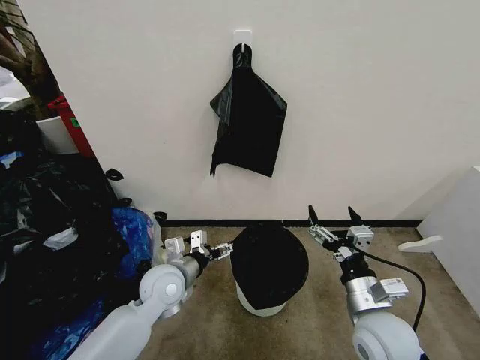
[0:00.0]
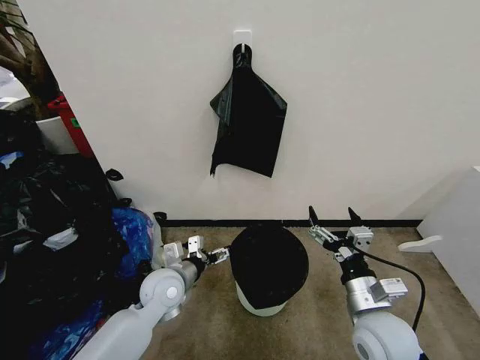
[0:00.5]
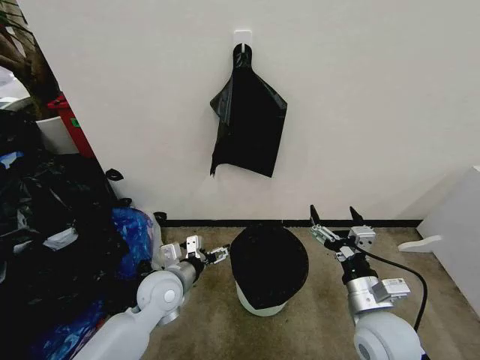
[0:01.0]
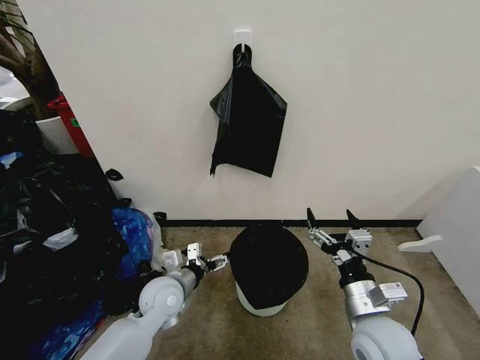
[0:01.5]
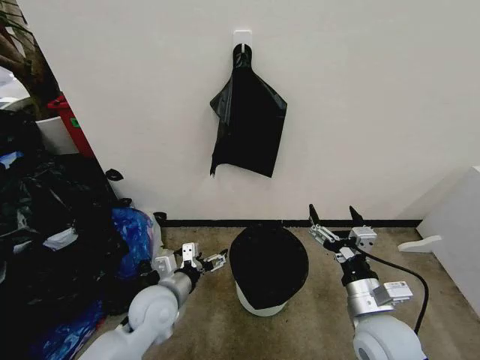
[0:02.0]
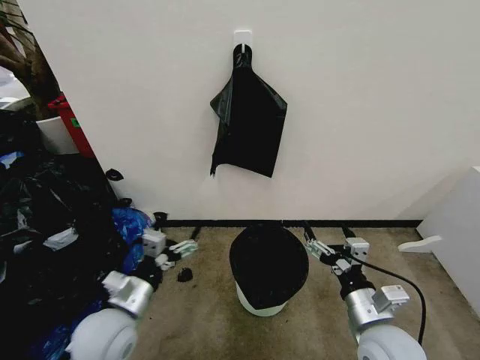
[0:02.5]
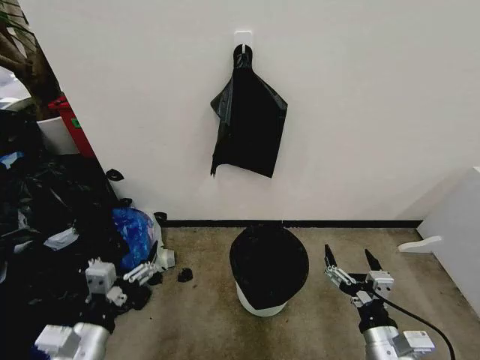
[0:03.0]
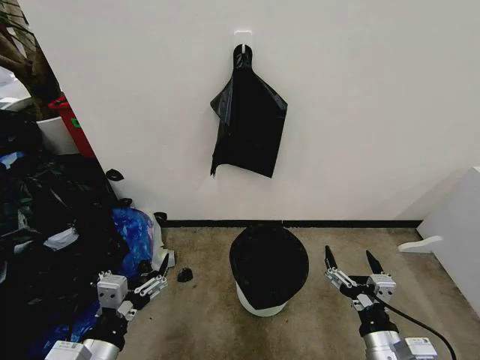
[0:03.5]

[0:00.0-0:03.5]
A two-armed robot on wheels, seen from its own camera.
Task of the whole recording: Place the garbage bag over the trash bin.
0:00.0 to 0:02.0: The grippers move only a little.
0:02.0 to 0:03.5: The right gripper goes some 10 cm backward; the left gripper moves backward, some 15 cm.
